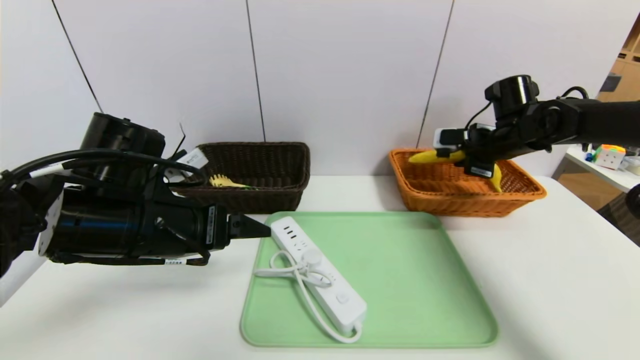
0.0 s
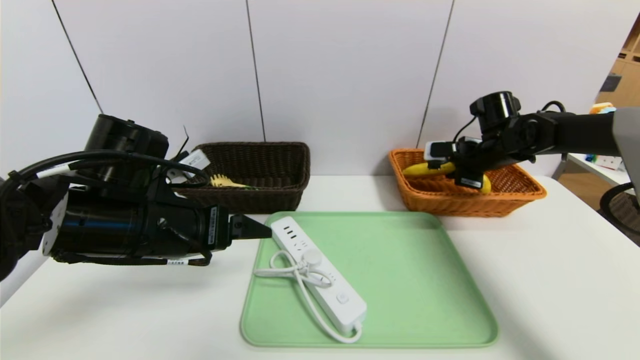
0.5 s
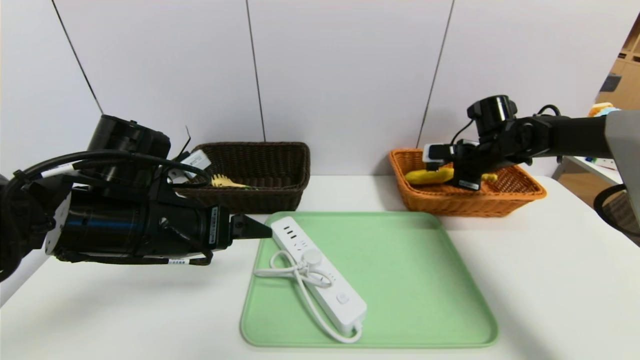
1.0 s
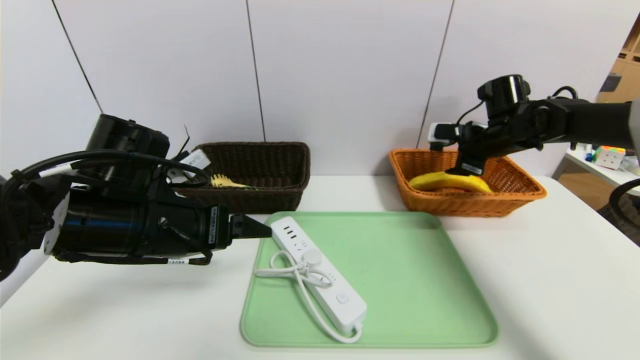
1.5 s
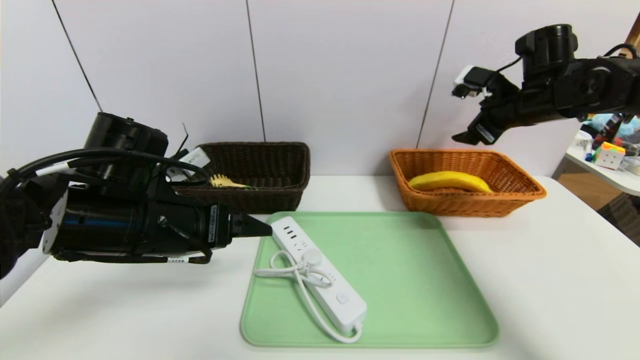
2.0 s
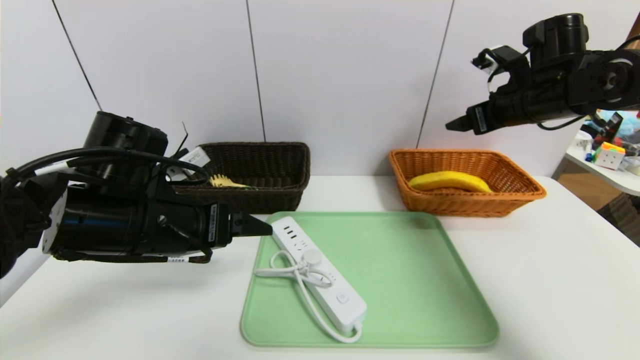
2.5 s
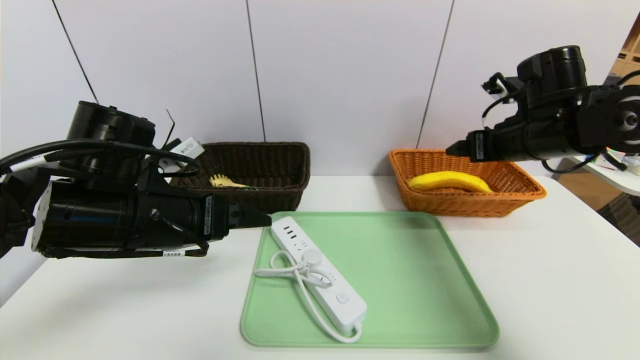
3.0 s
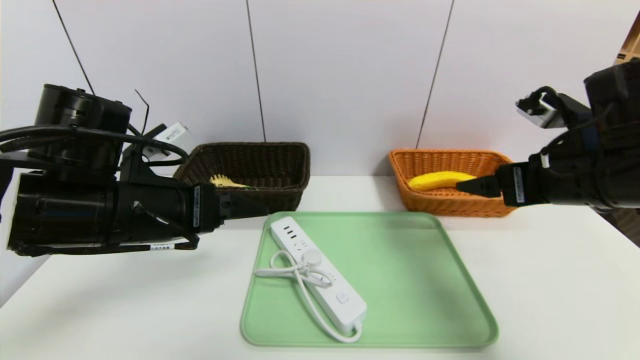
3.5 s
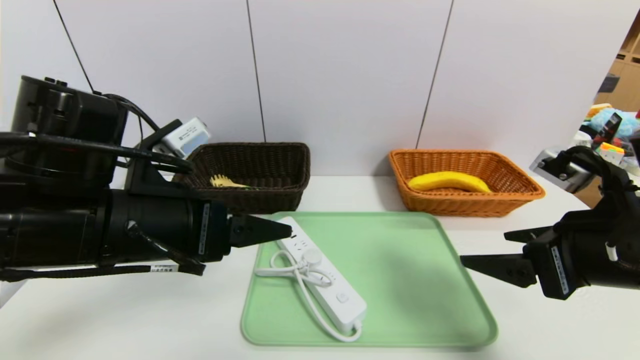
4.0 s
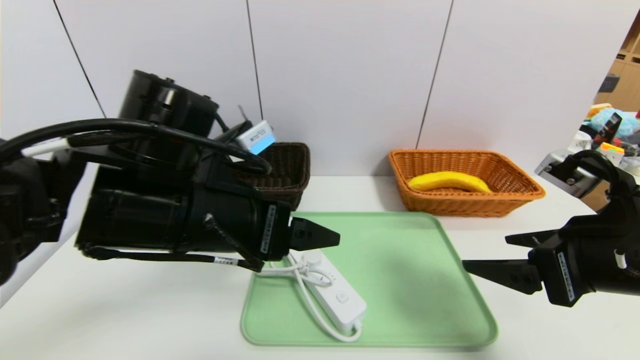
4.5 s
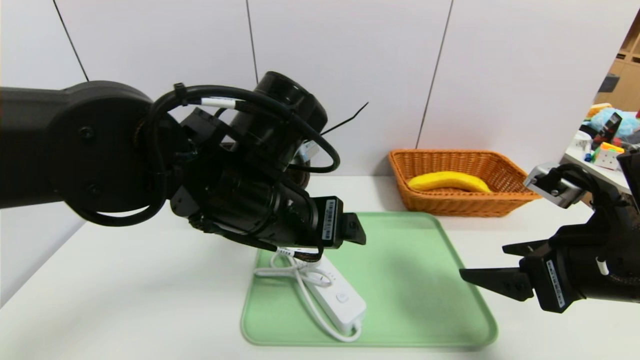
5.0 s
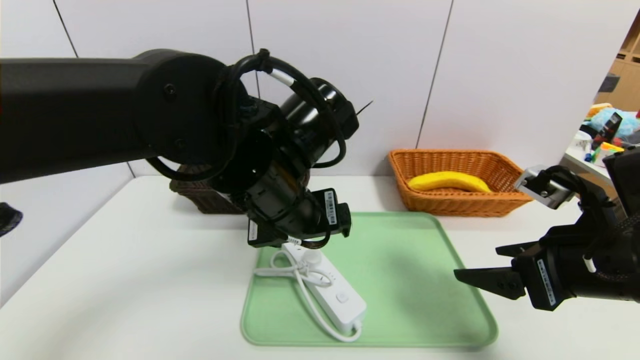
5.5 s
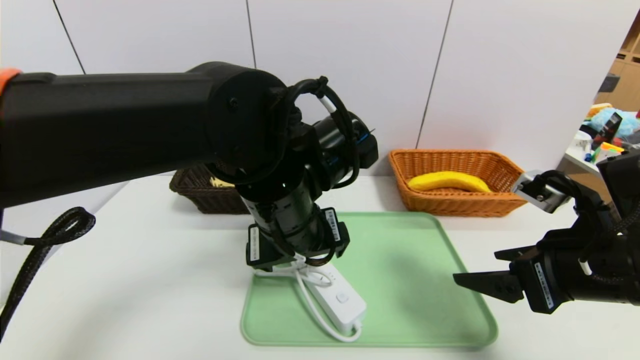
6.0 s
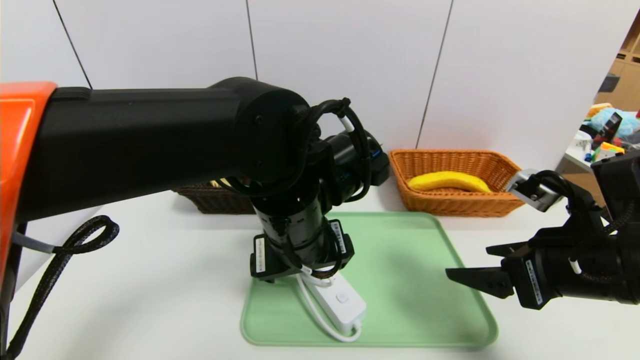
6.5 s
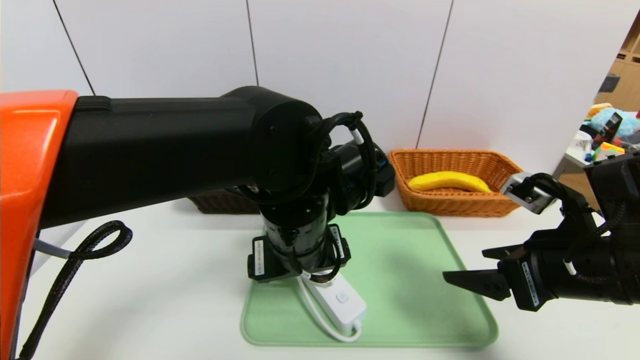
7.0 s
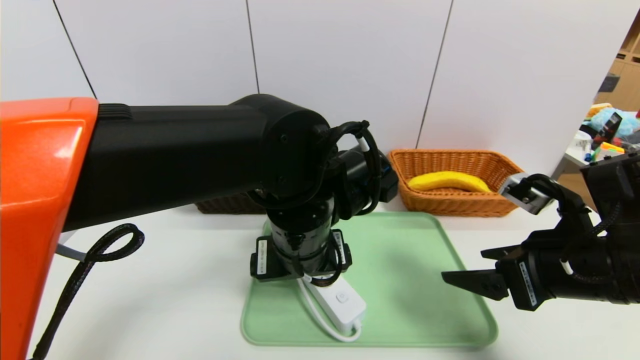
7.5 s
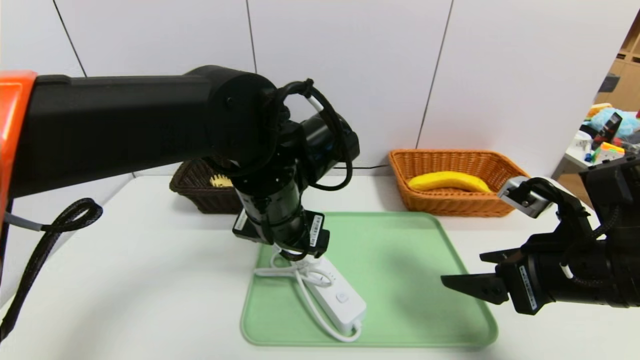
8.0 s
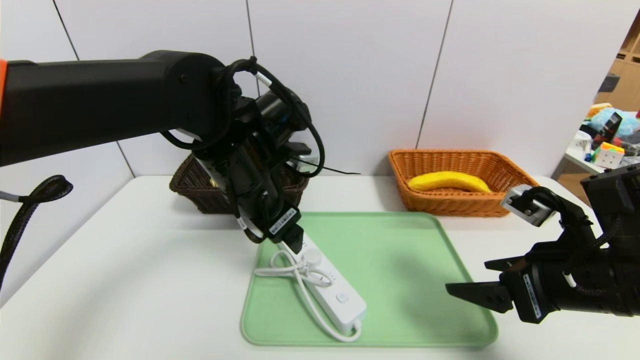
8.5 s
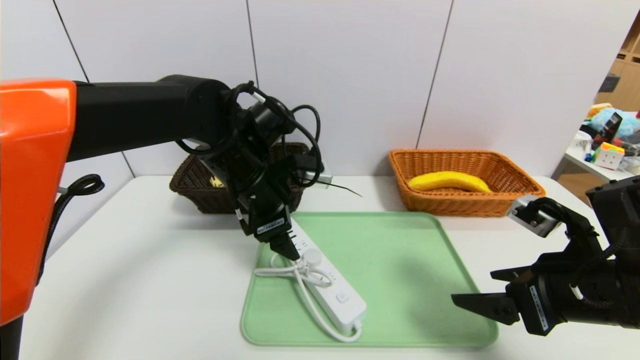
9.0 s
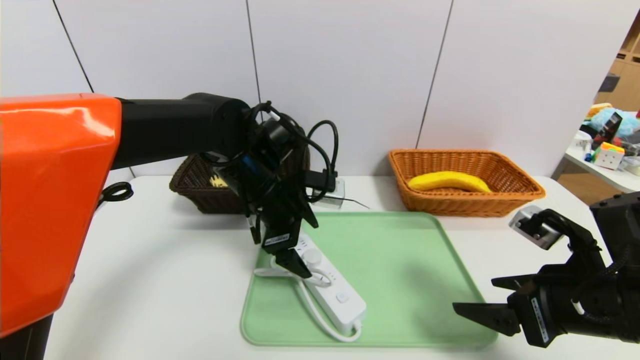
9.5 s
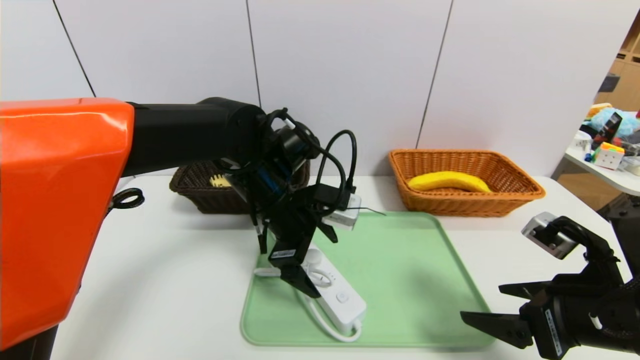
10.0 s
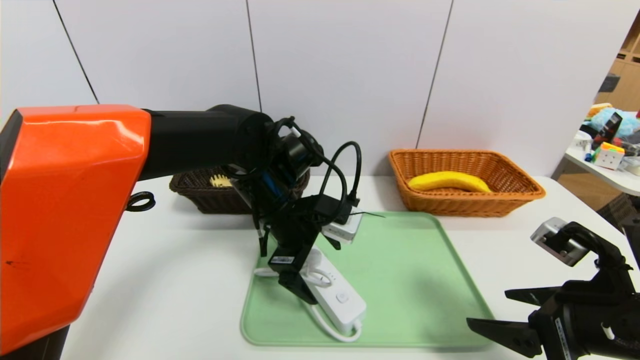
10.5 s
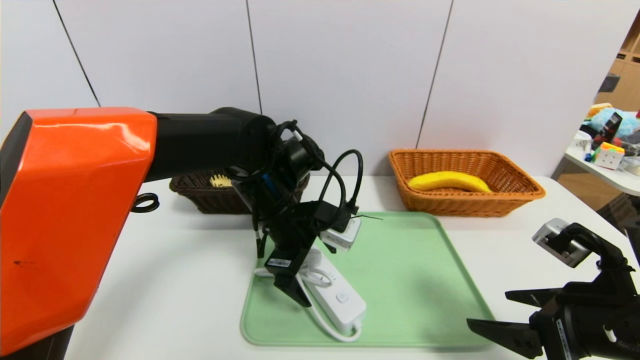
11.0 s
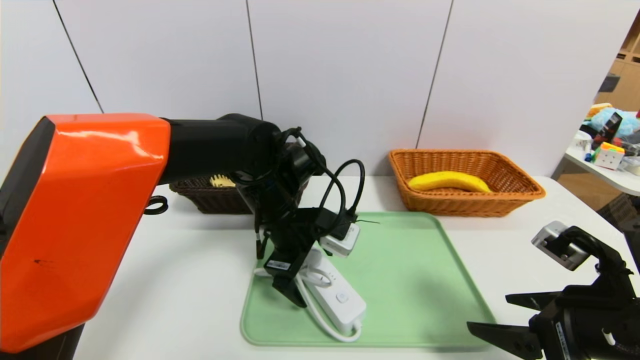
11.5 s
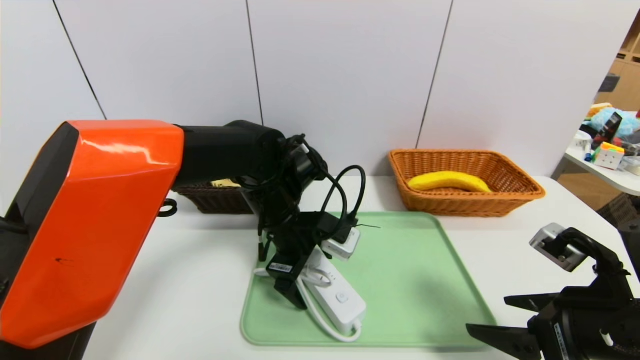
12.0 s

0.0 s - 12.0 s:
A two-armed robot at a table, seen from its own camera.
Task of the whole recording: place the food in the right basket with the right gripper, and place the non food items in the left basket with the left gripper.
0.0 s - 2.0 s: The right gripper heads upward, covering some 5 cm, and opens up.
2.0 s - 4.0 s: The right gripper goes roughly 25 cm backward, while the left gripper shifts by roughly 5 cm.
4.0 s - 6.0 s: The left gripper travels to the right by some 15 cm.
8.0 s - 10.0 s: The left gripper moves forward, approximately 5 cm.

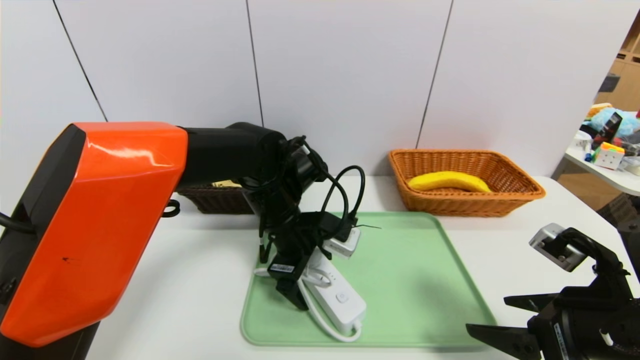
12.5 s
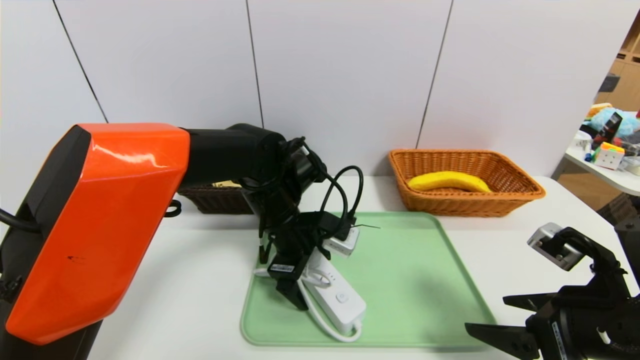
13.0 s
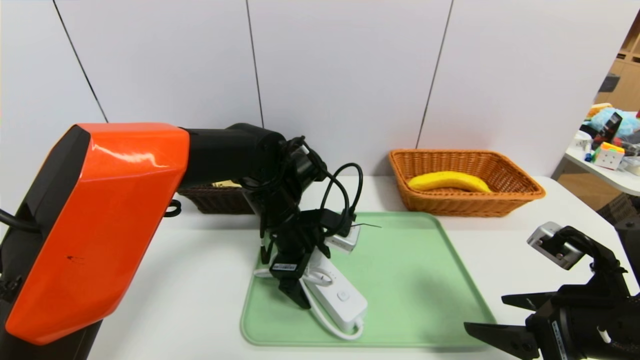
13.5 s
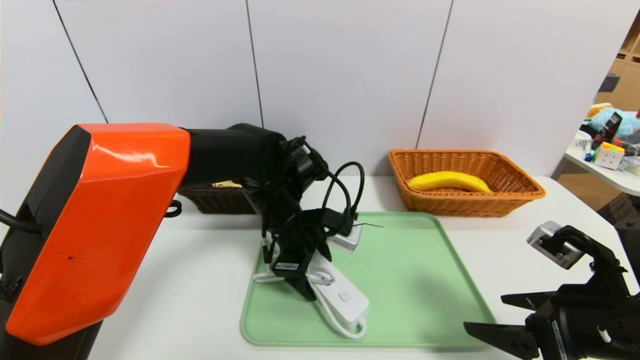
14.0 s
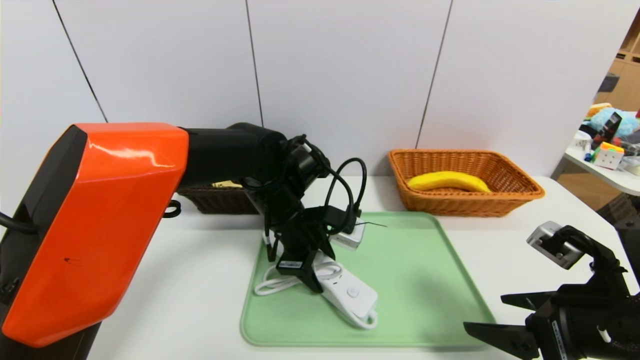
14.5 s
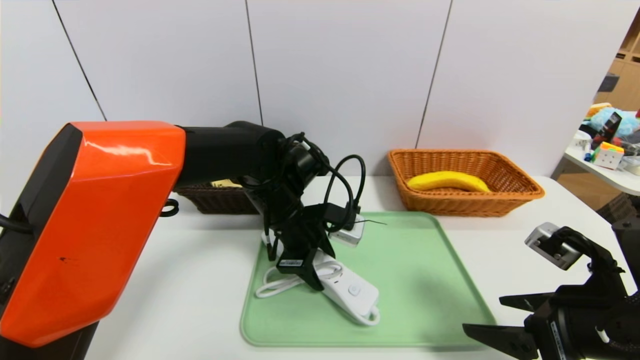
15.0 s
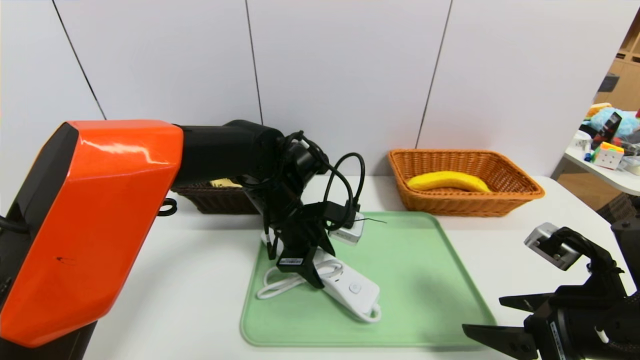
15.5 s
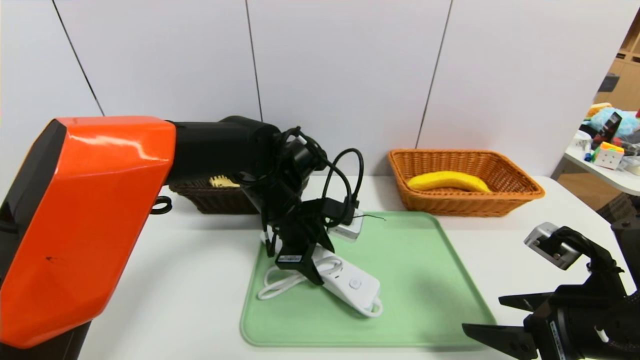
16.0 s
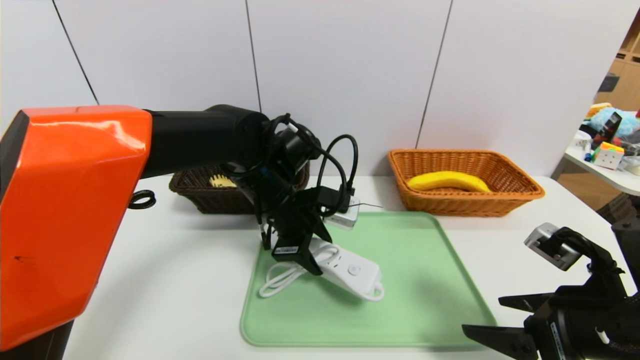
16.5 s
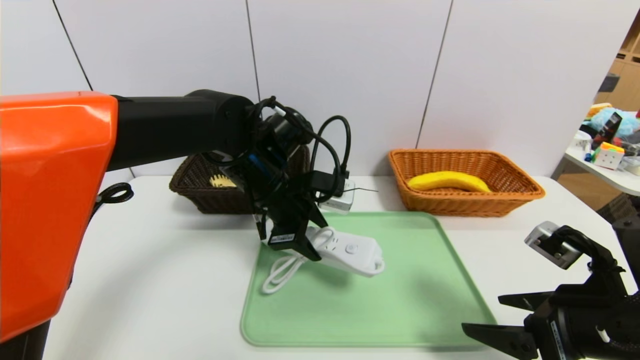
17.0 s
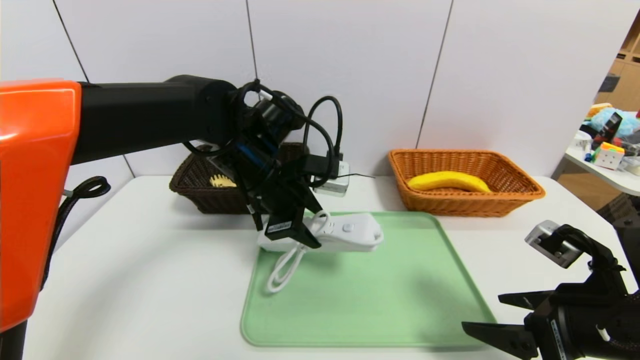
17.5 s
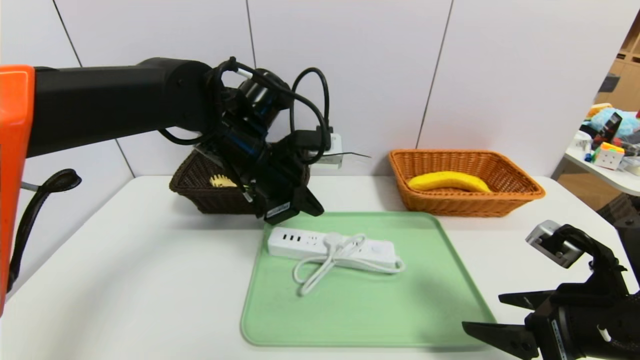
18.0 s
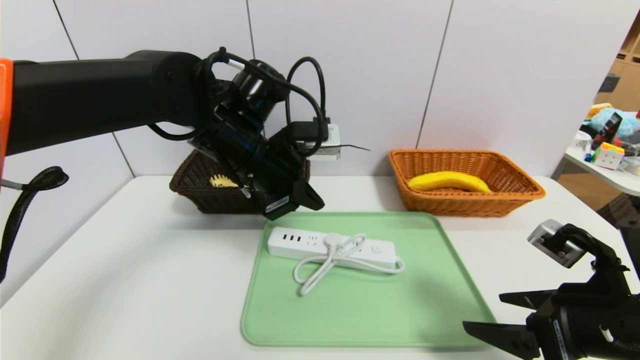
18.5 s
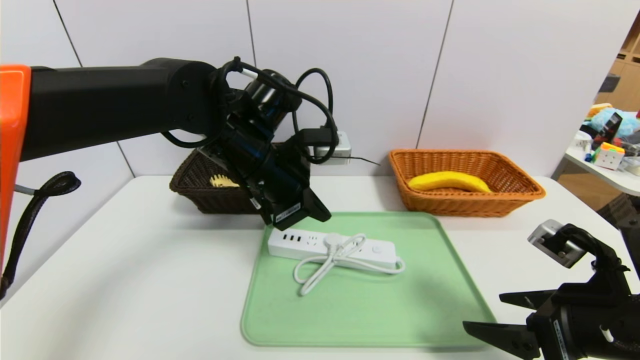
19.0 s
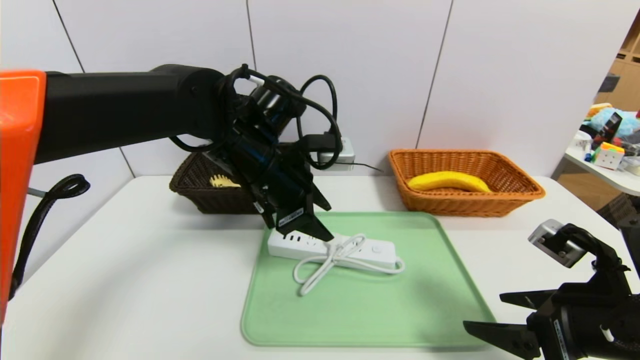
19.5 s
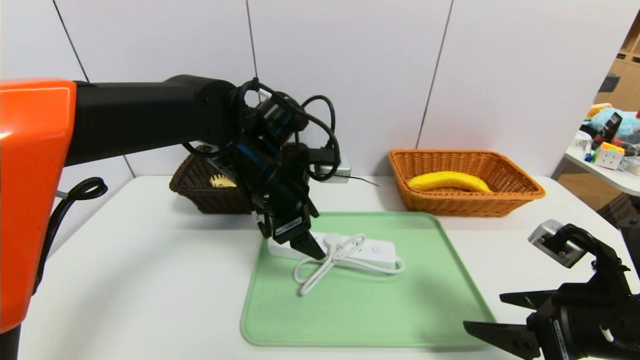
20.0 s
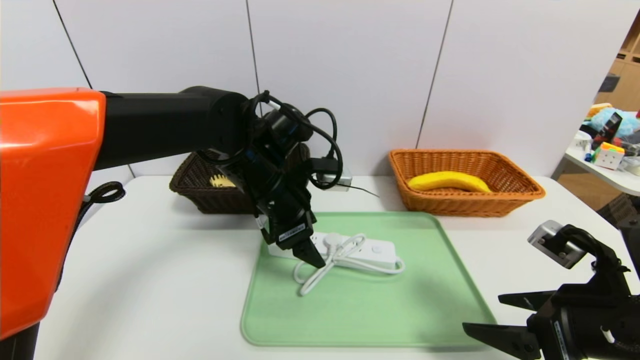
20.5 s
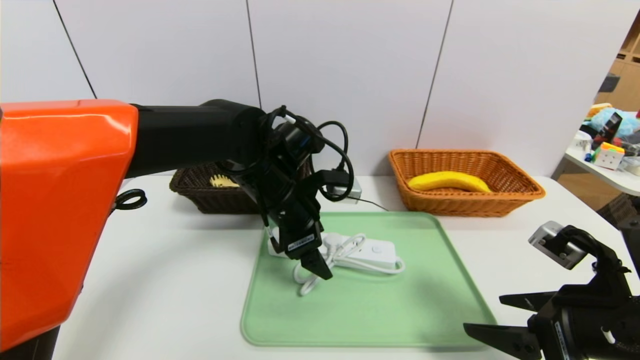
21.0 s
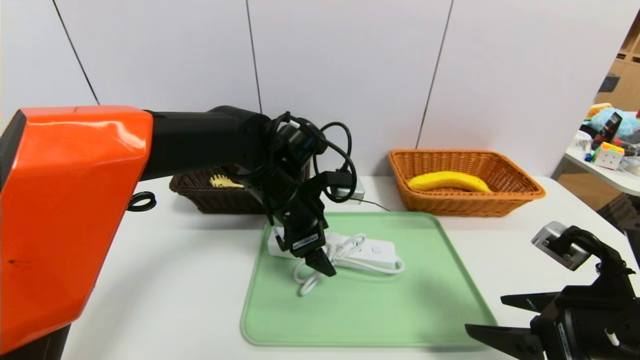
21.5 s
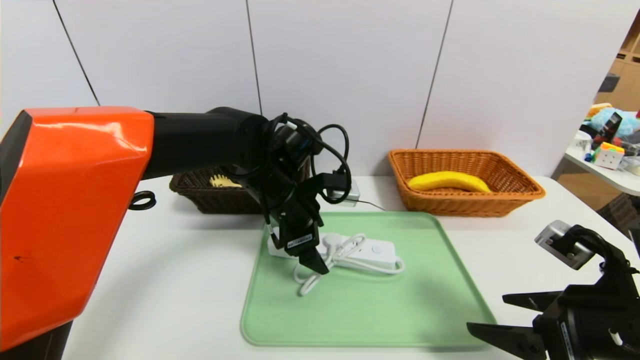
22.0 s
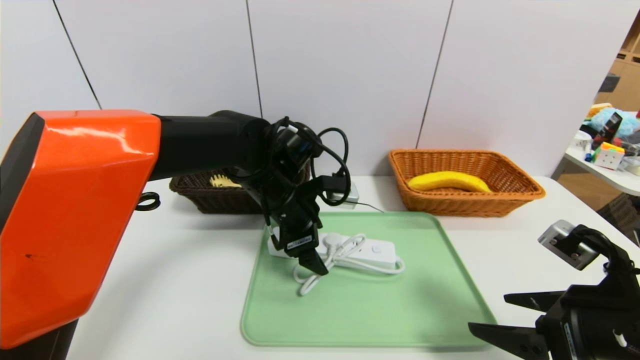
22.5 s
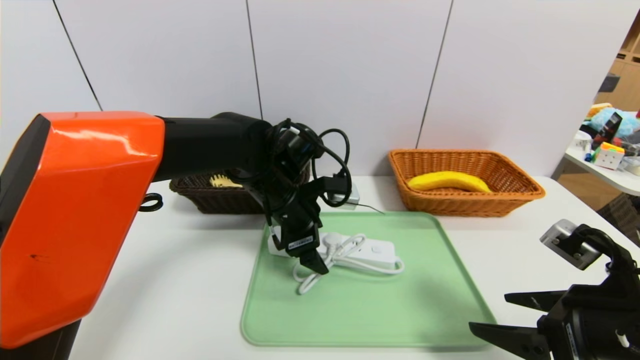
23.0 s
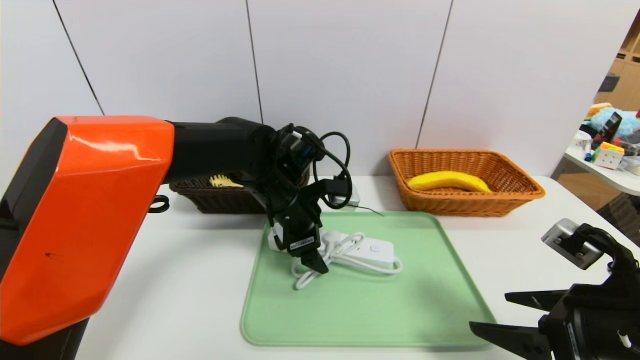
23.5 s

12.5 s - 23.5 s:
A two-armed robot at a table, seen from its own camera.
Task of the whole recording: place the food in the right basket with the right gripper, and place the non food items in the left basket with the left gripper.
12.5 s - 14.5 s: The left gripper closes.
14.5 s - 16.0 s: Both grippers stay put.
16.0 s - 18.0 s: The left gripper is displaced upward by roughly 10 cm.
18.0 s - 20.0 s: The left gripper opens its fingers.
21.5 s - 23.5 s: The grippers move only a little.
